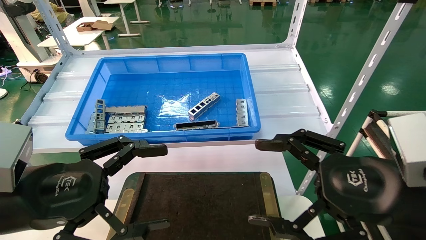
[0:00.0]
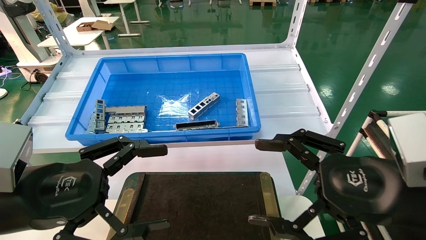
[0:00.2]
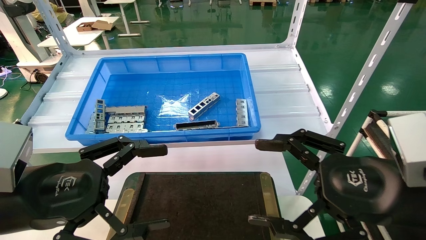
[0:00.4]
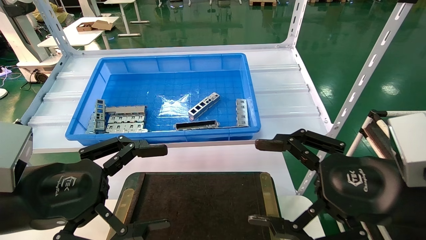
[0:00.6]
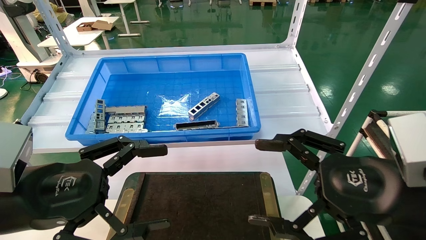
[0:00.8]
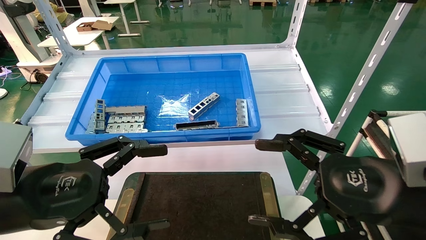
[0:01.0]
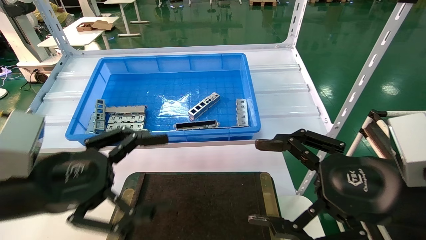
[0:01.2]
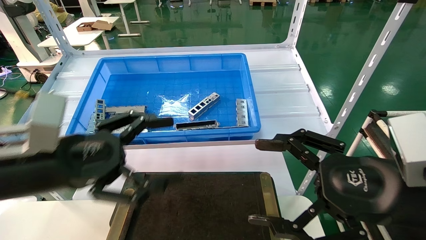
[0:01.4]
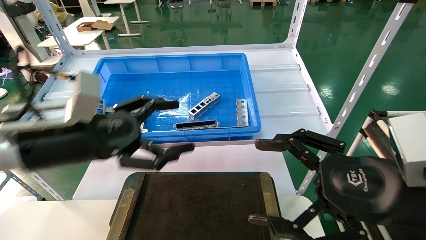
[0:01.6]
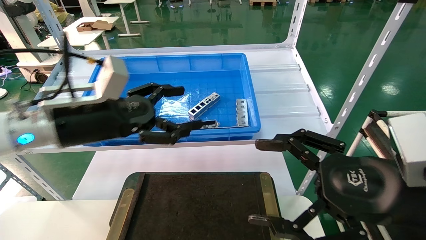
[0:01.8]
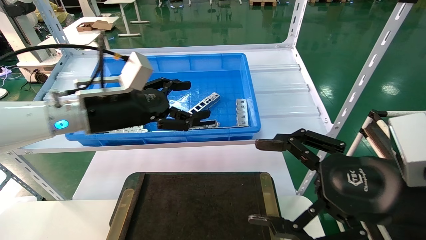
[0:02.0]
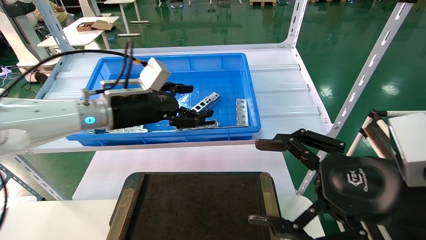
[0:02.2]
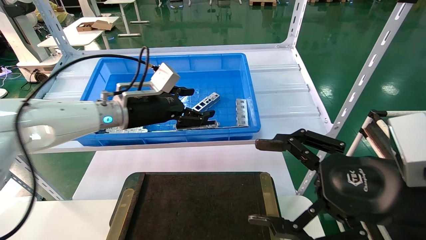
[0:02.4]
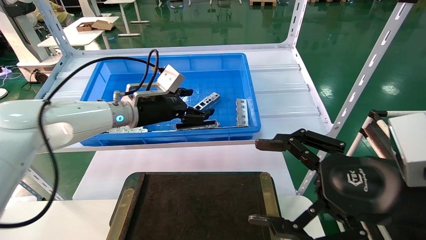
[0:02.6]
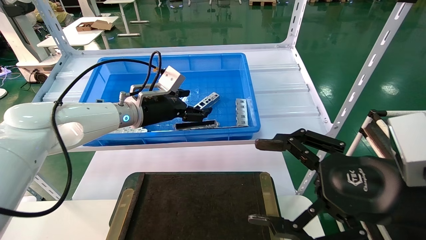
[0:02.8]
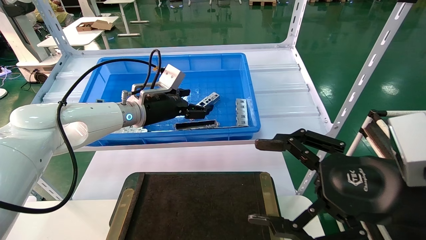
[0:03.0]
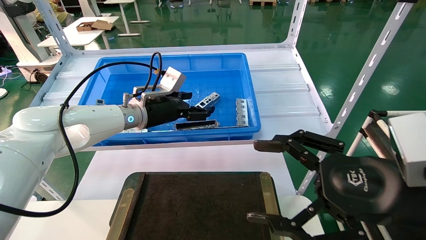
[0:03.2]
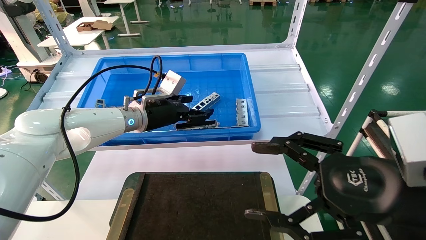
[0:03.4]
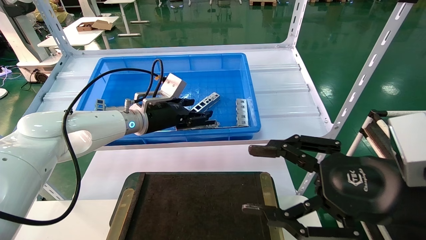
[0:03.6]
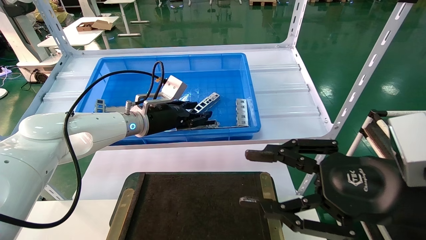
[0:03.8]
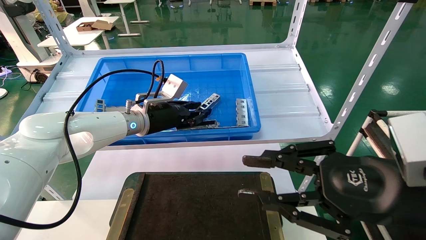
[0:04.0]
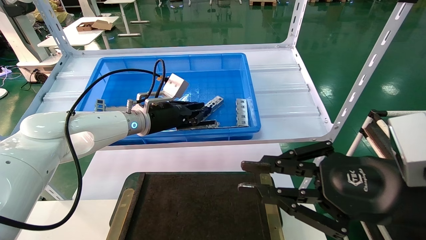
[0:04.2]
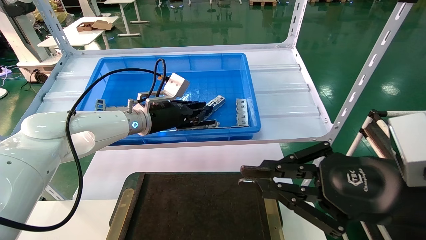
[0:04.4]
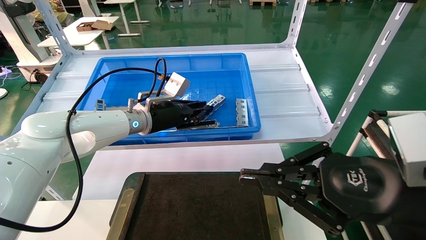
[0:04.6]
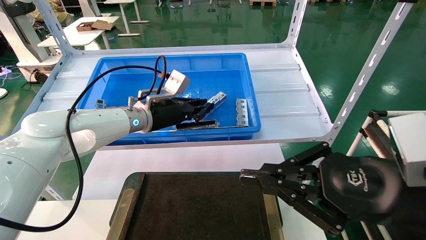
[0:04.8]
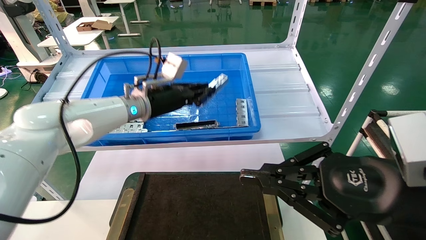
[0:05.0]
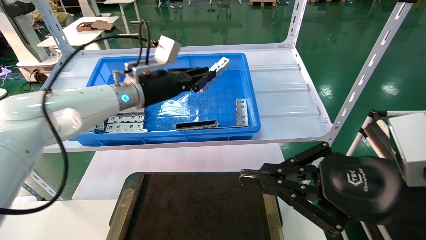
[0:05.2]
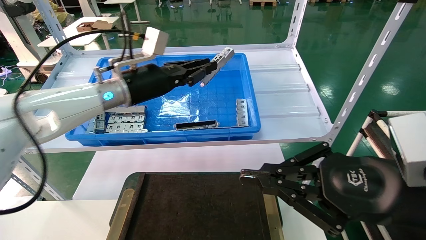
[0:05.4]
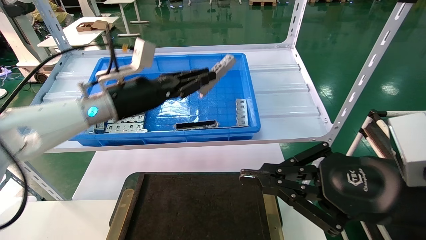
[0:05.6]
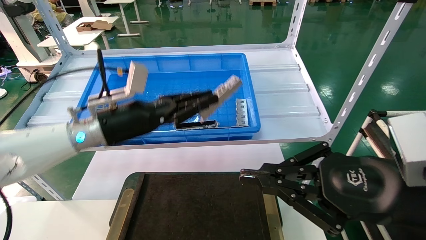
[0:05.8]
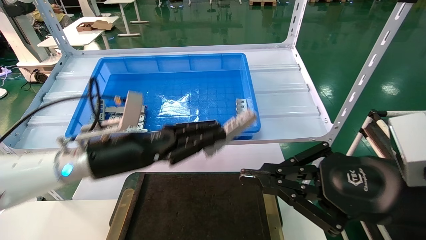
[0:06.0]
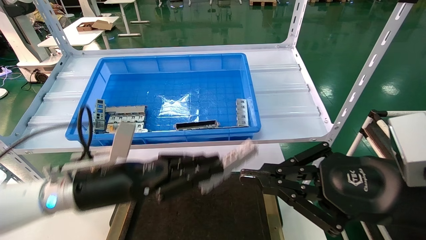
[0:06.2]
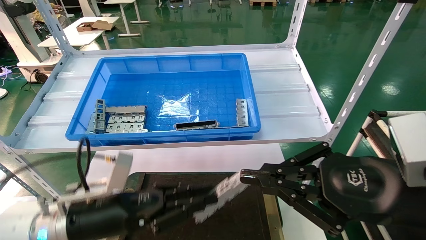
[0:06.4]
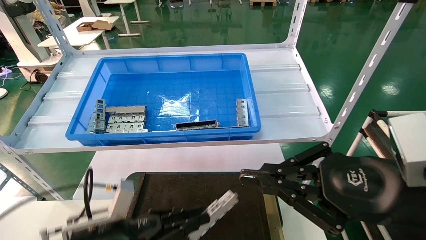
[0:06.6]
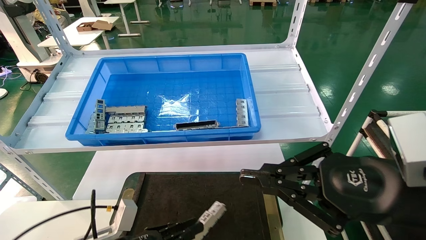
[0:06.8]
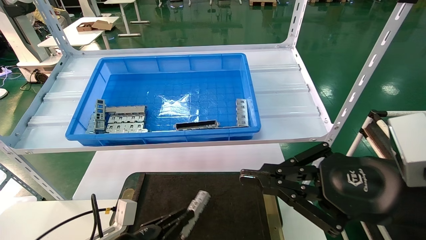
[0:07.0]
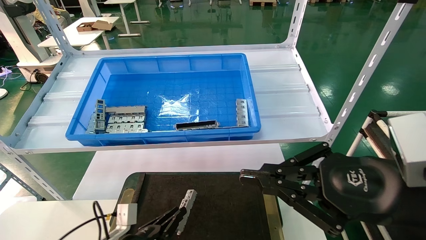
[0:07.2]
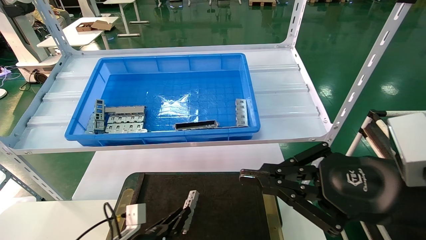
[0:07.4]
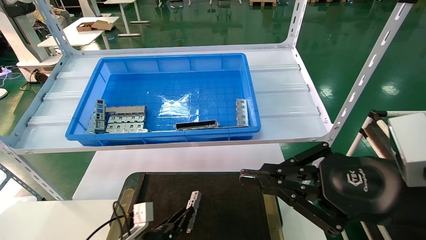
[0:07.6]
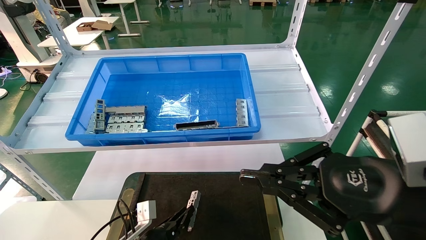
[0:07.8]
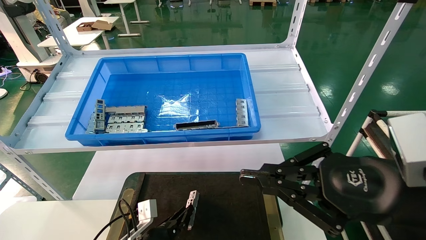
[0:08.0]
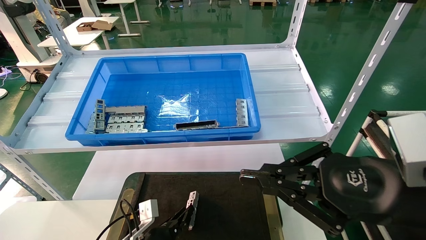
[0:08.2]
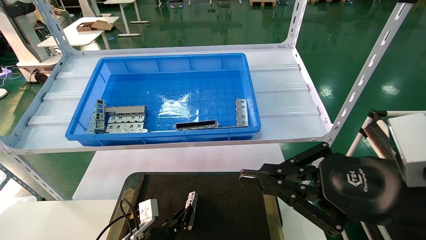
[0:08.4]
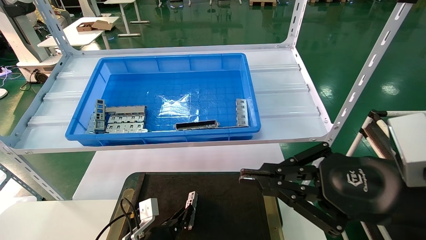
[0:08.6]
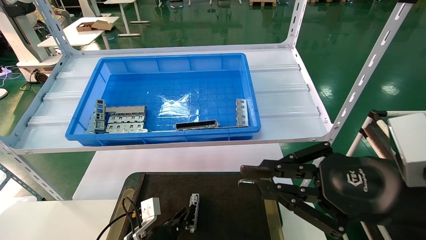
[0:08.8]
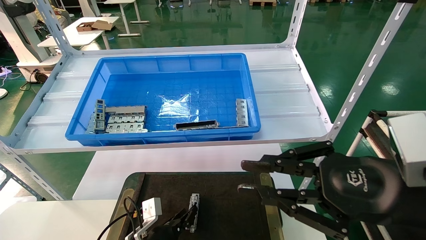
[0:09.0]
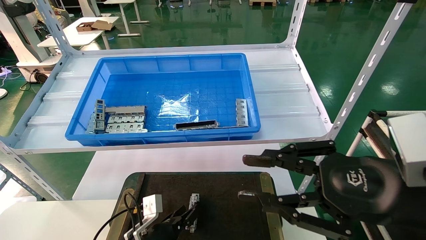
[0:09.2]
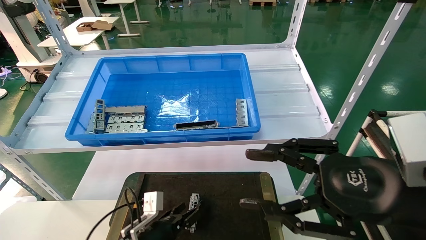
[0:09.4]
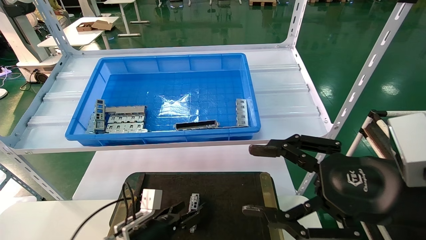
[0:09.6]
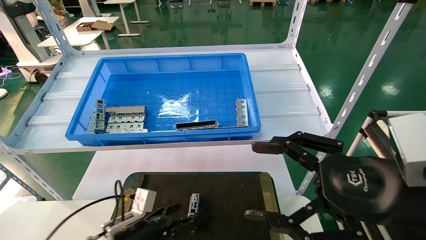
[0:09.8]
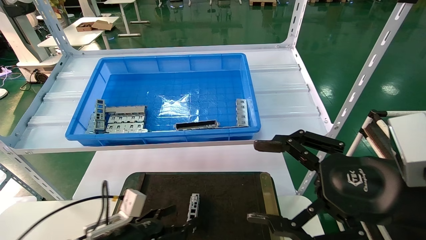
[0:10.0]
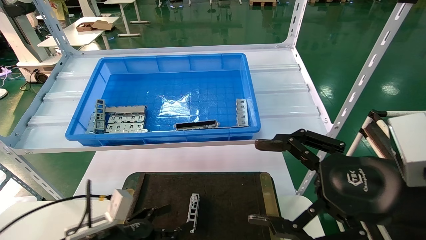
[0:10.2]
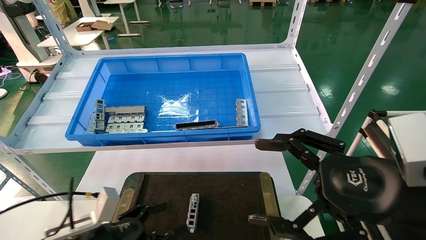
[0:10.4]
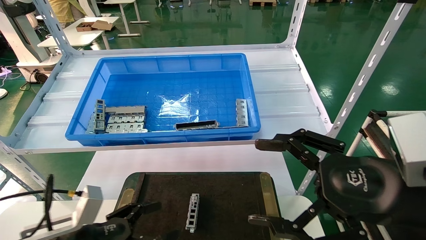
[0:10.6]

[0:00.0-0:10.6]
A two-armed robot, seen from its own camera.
Task of the whole recording: Grasp the part with one hand and place it on the black container.
Step, 0:02.0 to 0:04.8: Pick up the front USB bracket from the feeding area.
Step, 0:05.0 to 0:09.6: Place the front USB bracket into the box.
0:00.0 to 0:01.6: The left gripper is displaced forward by roughly 10 cm.
0:01.6 to 0:03.0: The left gripper heads forward, covering some 20 cm.
0:03.0 to 0:04.6: The left gripper closes up. The right gripper closes.
0:04.6 to 0:06.0: The left gripper is displaced backward by roughly 15 cm.
0:06.0 to 0:07.6: The left gripper moves downward, approximately 25 cm.
0:07.6 to 0:09.0: The grippers stay close to where they were, moving slightly.
0:09.0 to 0:10.6: The right gripper opens its fingers. Meanwhile the left gripper goes about 20 cm upward, to the left and backward, and opens its fingers.

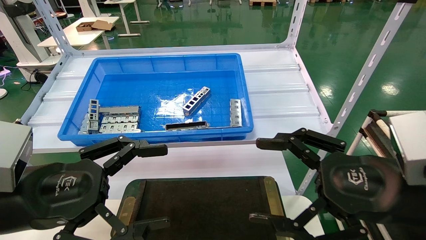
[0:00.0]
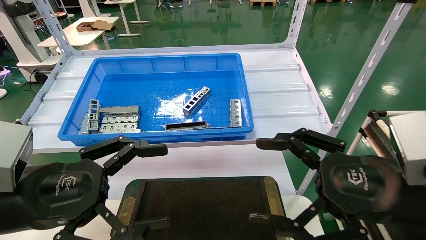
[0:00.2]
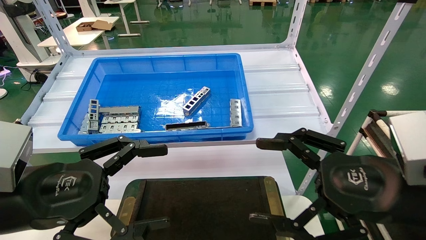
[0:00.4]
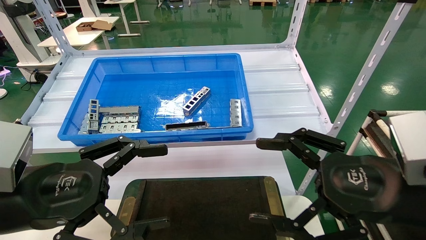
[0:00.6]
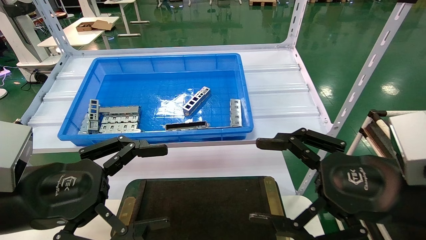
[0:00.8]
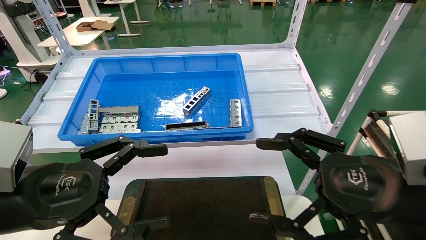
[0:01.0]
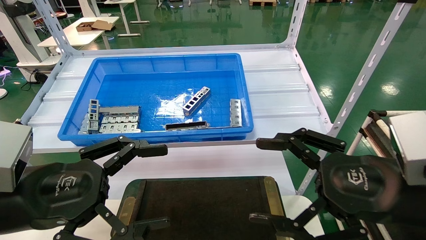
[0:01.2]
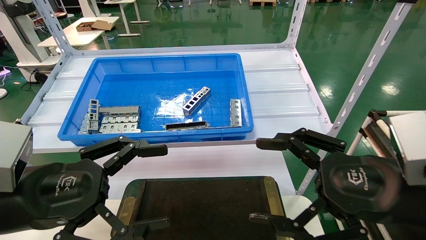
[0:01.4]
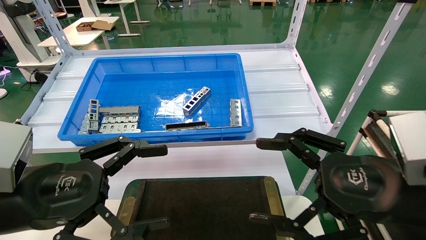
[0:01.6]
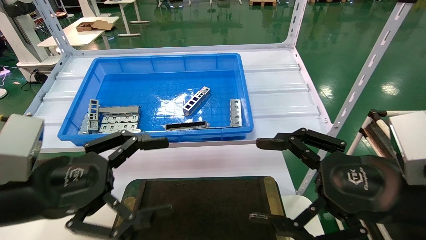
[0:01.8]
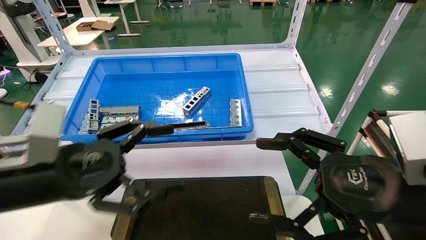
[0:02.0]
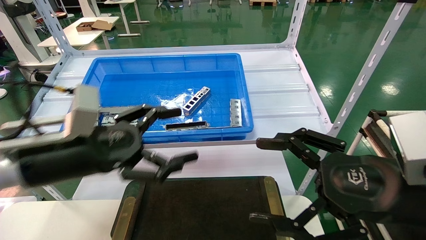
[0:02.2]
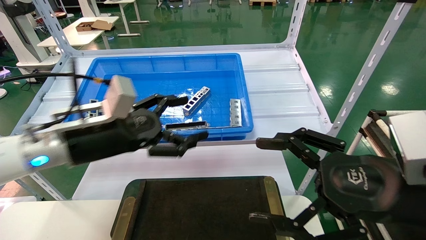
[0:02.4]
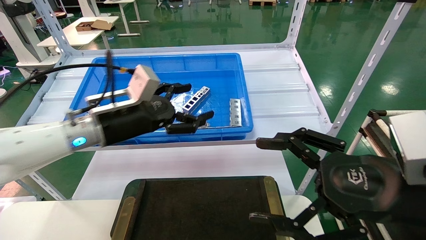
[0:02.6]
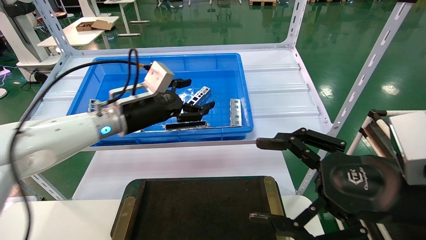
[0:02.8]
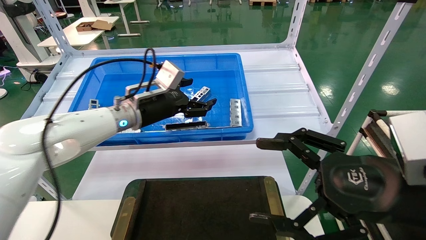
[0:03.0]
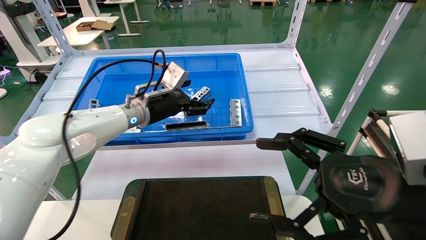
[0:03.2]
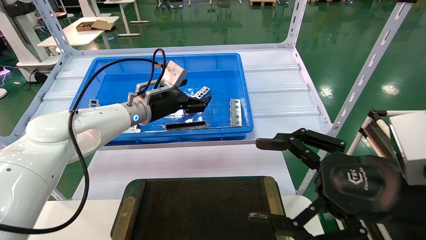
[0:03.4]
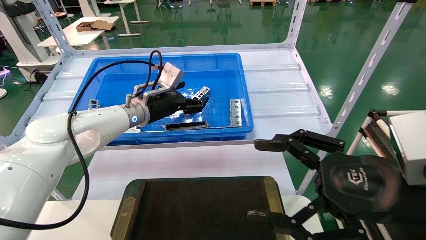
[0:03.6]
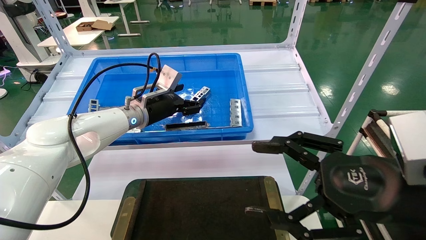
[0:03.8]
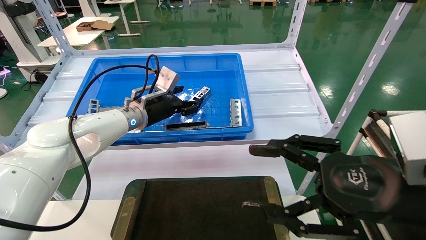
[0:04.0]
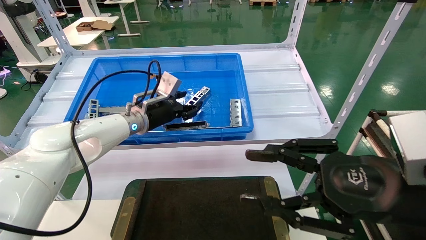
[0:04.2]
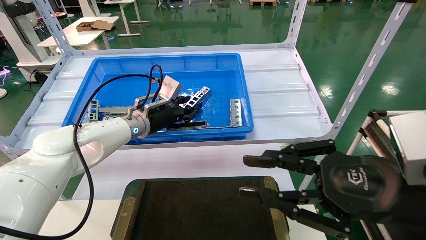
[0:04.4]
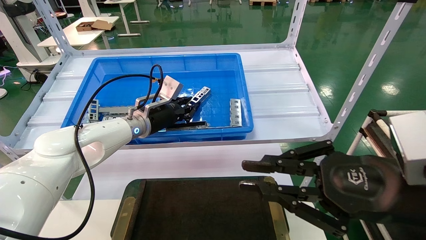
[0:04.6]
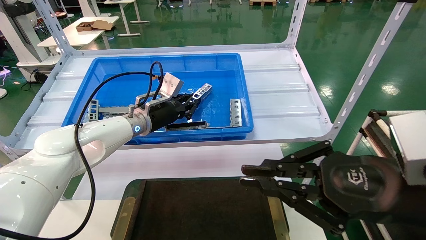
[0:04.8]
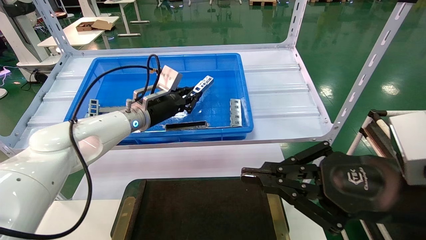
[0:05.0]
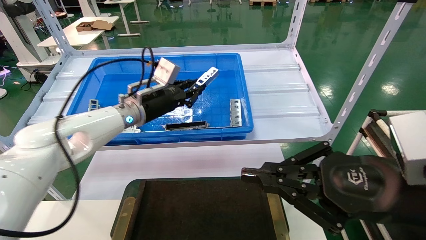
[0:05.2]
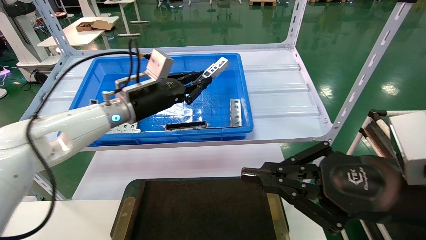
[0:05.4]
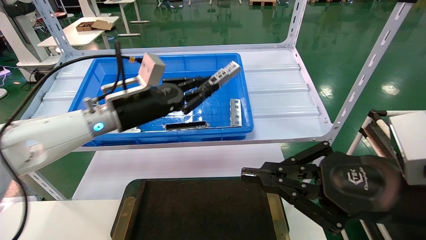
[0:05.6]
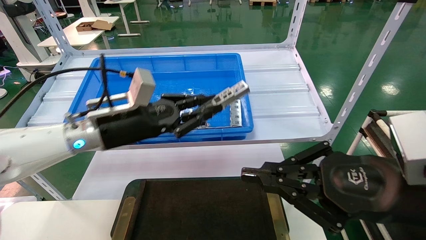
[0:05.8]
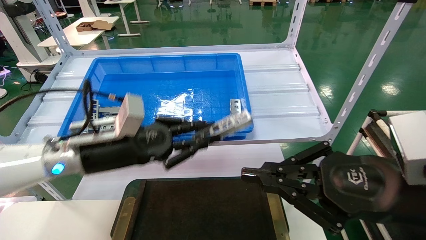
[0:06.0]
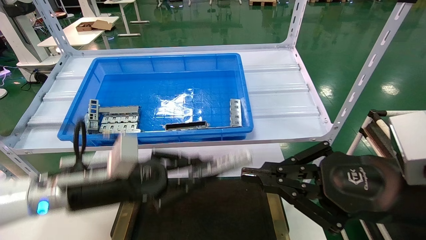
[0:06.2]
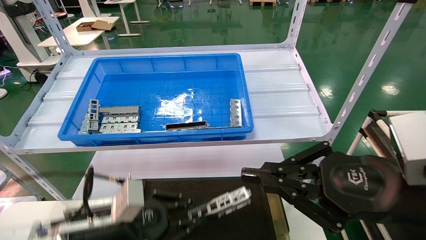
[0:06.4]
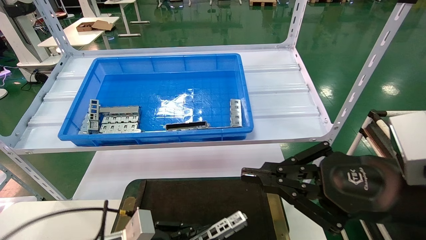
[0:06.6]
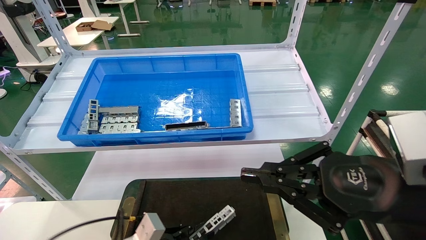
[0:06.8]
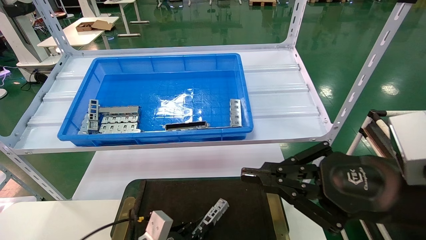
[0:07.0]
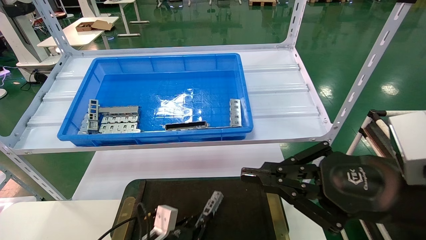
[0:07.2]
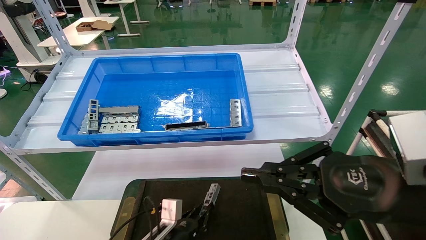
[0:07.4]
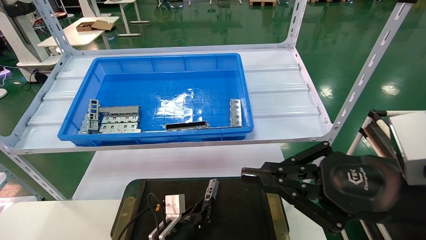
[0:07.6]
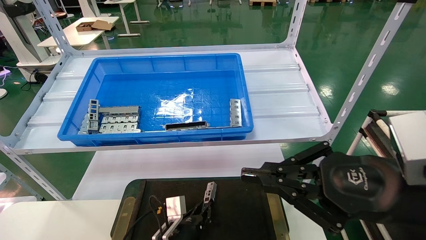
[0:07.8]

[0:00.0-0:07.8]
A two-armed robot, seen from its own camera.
Task of the whole recording: Grasp the part with one hand and place it on the black container.
Step, 0:01.2 to 0:03.6: Pick up the front USB bracket from the feeding area.
0:00.0 to 0:01.6: Both grippers stay about where they are.
0:01.6 to 0:03.2: The left gripper shifts about 30 cm forward.
0:03.2 to 0:04.6: The right gripper closes up, while the left gripper closes.
0:04.6 to 0:06.2: The left gripper shifts roughly 20 cm backward.
0:06.2 to 0:07.8: The left gripper goes about 25 cm downward and to the right.
